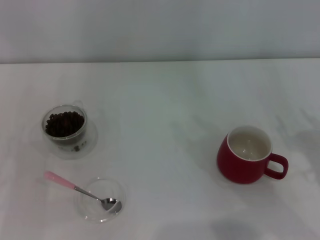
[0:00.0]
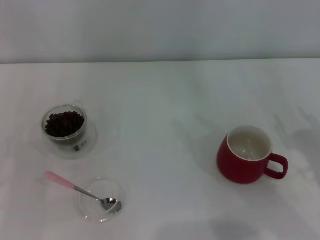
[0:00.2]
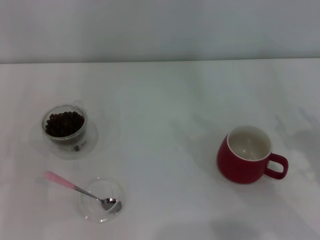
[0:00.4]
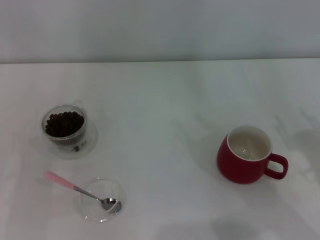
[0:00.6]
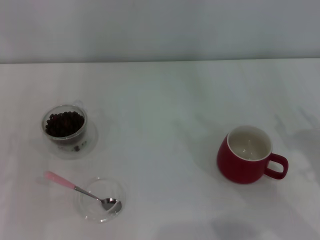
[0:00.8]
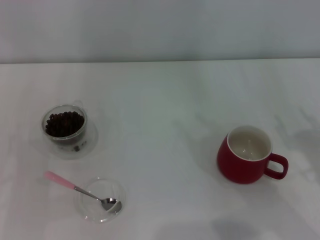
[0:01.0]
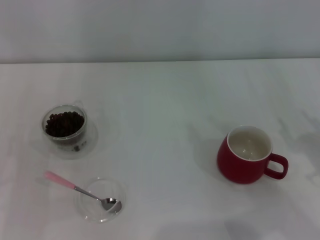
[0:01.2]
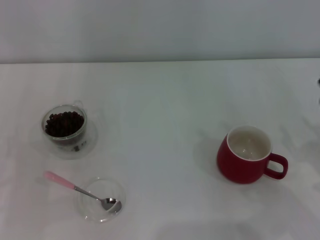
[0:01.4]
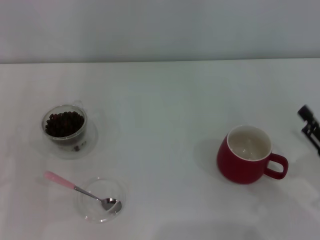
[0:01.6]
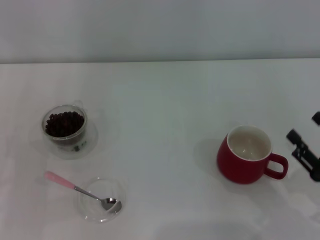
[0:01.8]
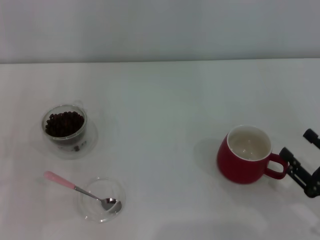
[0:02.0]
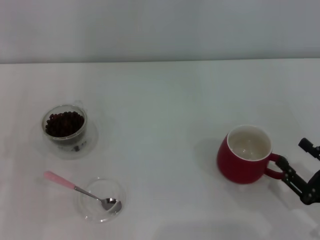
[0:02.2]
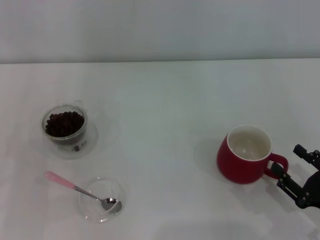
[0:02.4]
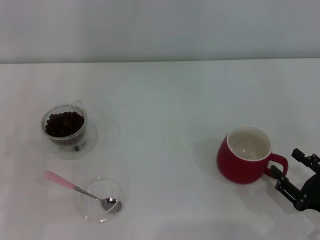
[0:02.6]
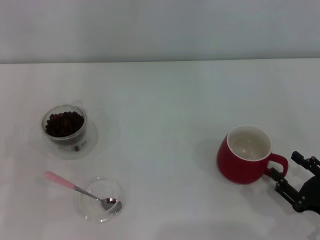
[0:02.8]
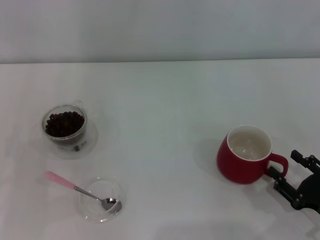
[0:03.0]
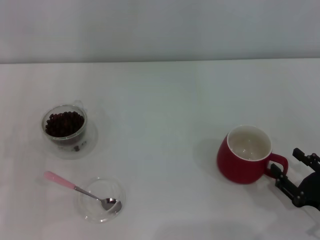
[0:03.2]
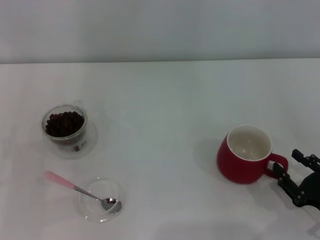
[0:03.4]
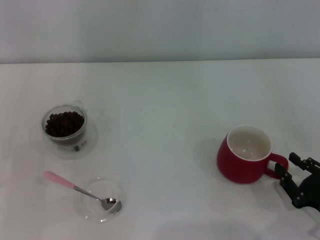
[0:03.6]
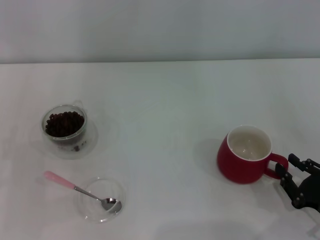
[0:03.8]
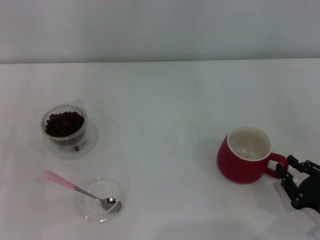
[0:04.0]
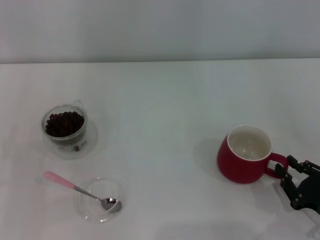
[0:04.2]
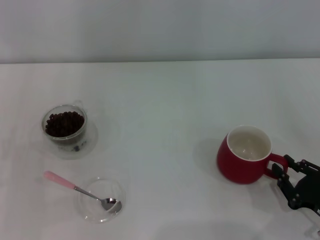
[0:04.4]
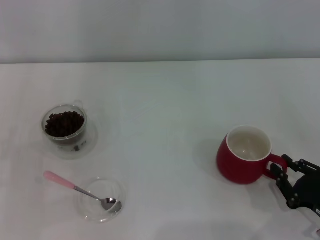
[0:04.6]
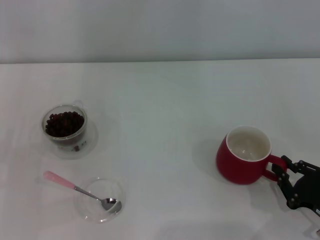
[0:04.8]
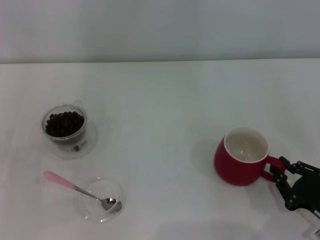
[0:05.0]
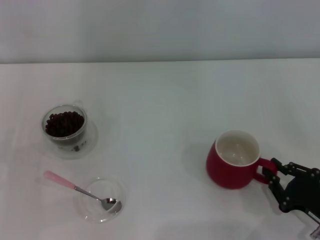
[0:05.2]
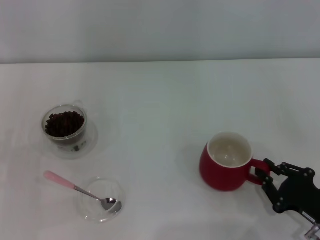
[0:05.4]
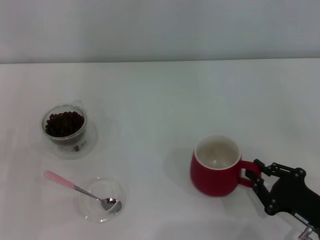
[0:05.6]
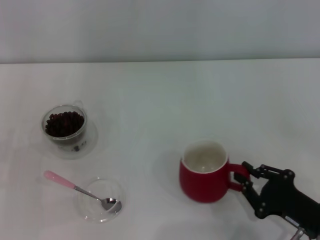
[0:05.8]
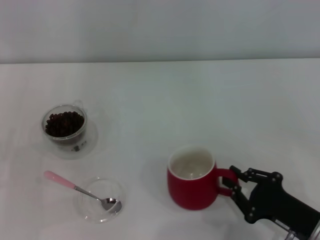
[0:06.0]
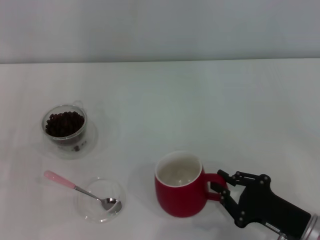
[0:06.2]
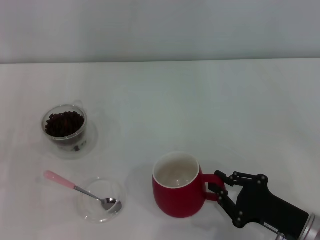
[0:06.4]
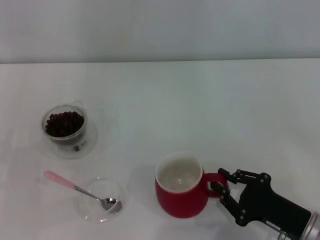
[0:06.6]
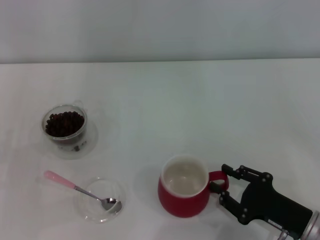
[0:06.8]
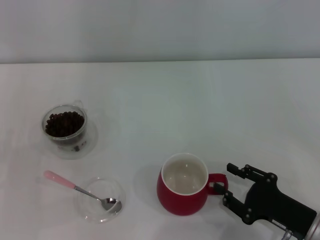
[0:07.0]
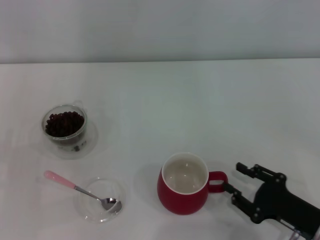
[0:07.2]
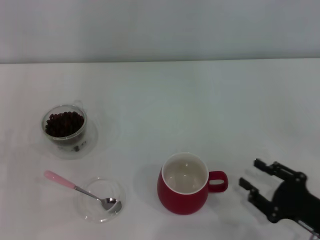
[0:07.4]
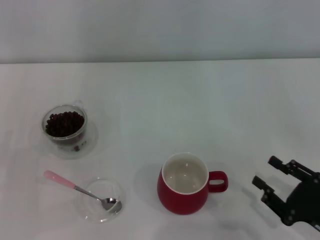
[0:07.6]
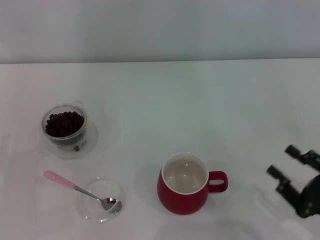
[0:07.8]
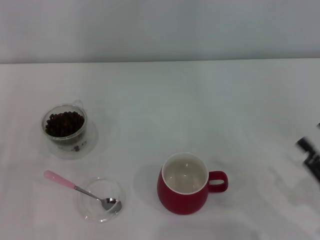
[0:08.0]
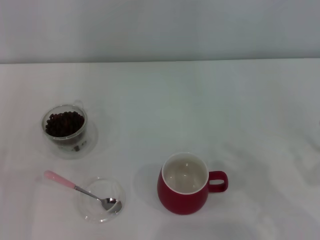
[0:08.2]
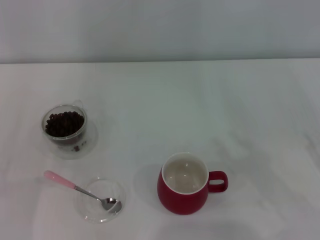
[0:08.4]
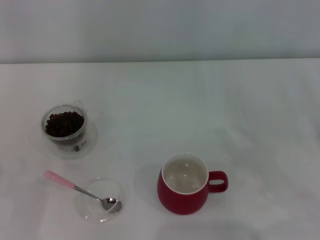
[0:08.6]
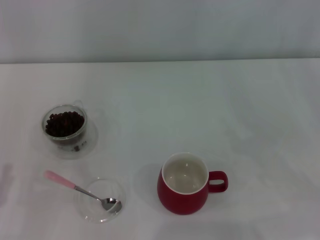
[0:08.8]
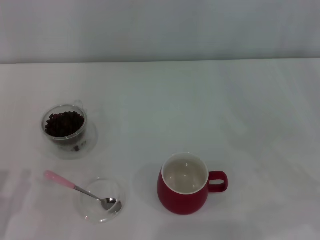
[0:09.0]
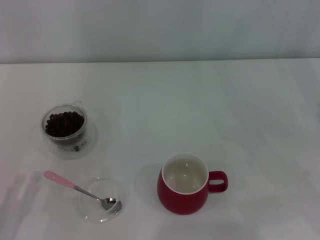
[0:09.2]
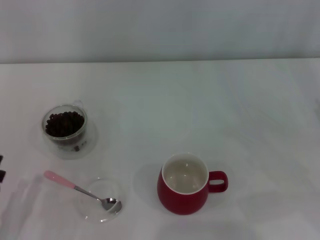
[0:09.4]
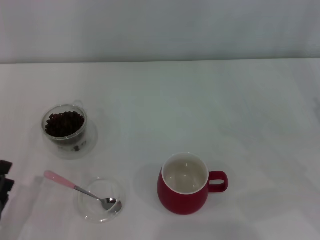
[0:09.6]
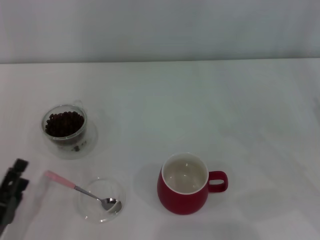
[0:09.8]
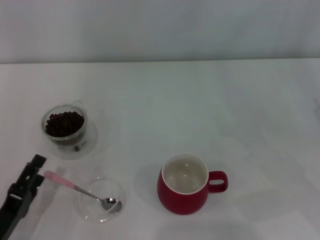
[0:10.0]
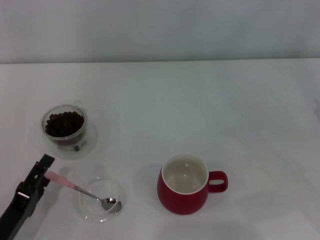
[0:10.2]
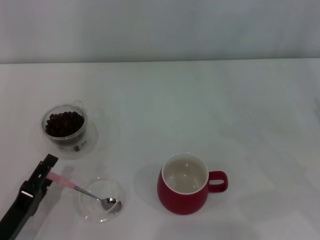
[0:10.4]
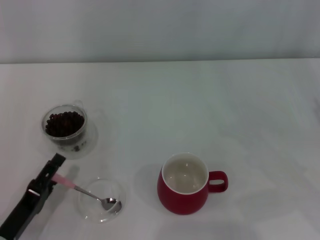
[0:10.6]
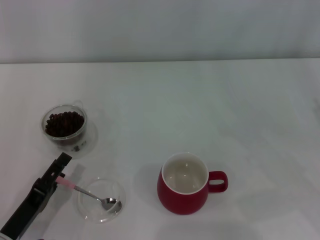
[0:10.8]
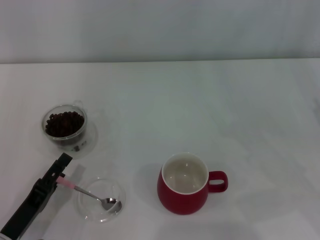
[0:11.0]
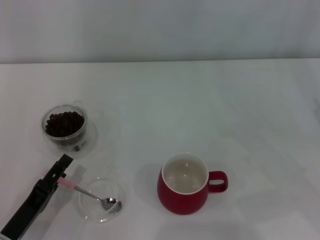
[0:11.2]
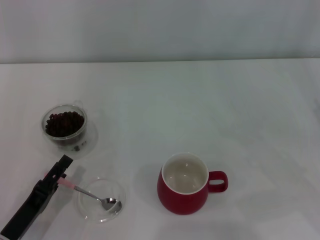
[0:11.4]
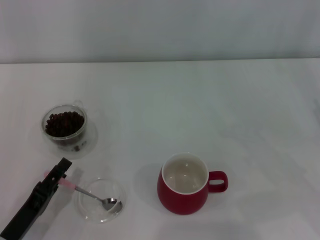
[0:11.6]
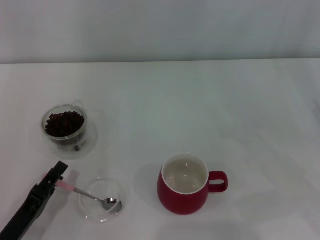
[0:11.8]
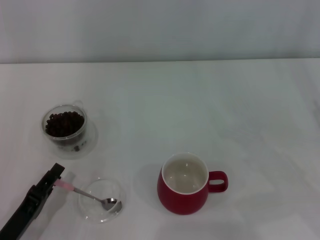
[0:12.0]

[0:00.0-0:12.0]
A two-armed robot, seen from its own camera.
Task of the whole recording: Use a pink spoon to take out the coffee beans from the glass and pour them into the red cup.
Step, 0:00.0 to 0:07.4: Move the cup to the center of view with the left gripper.
0:00.0 to 0:01.6: The right gripper moves about 5 cm.
0:01.6 to 0:03.0: The right gripper goes about 5 cm downward.
0:03.0 to 0:04.4: The right gripper closes up.
0:04.4 to 0:06.0: The right gripper heads to the left, covering some 5 cm.
0:06.0 to 0:07.6: The right gripper opens its fingers.
0:07.6 to 0:09.0: The right gripper shifts approximately 15 cm upward, to the right and forward.
0:09.0 to 0:10.4: The left gripper changes place by about 5 cm.
0:10.4 to 0:12.0: The left gripper closes.

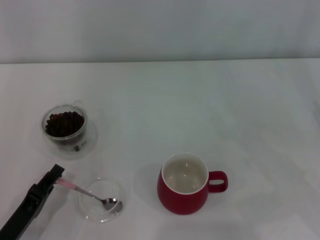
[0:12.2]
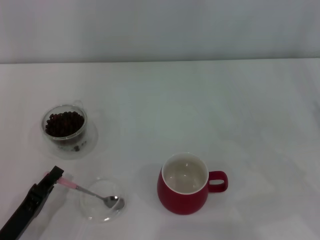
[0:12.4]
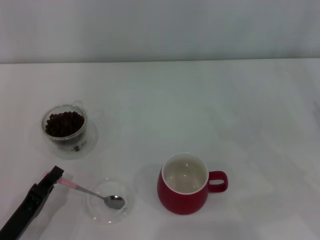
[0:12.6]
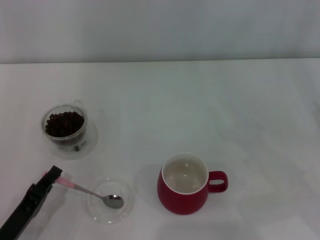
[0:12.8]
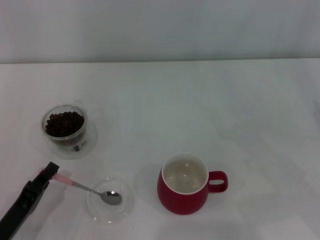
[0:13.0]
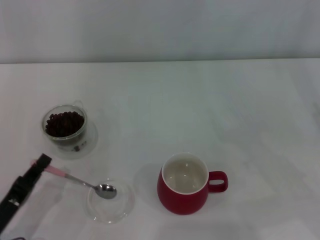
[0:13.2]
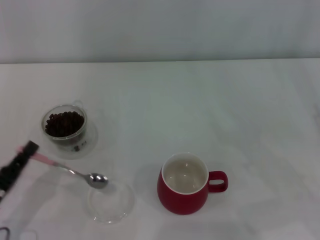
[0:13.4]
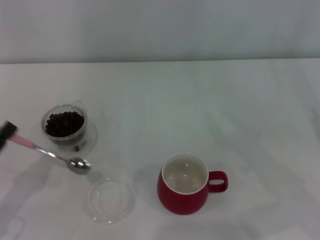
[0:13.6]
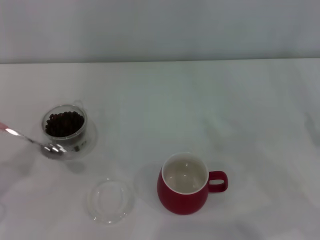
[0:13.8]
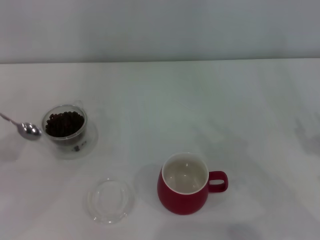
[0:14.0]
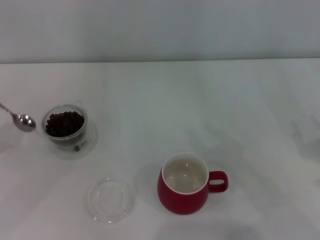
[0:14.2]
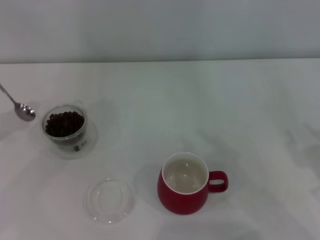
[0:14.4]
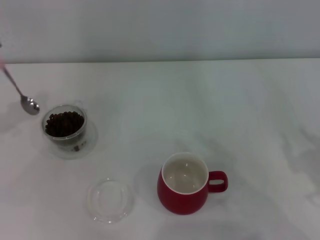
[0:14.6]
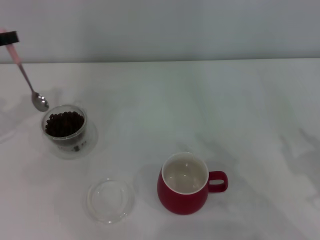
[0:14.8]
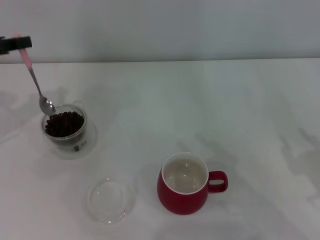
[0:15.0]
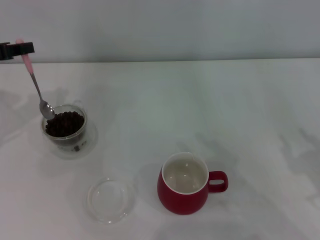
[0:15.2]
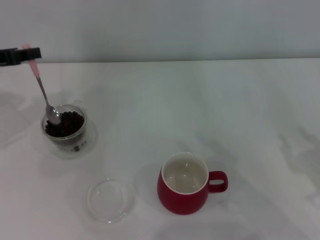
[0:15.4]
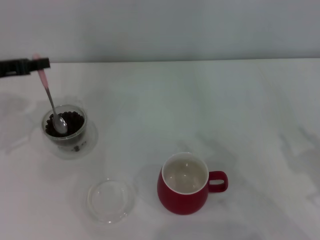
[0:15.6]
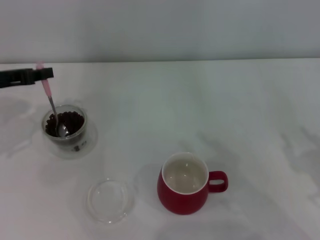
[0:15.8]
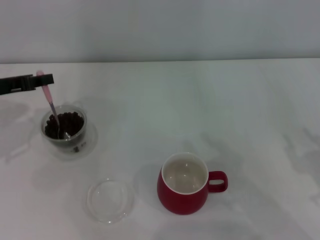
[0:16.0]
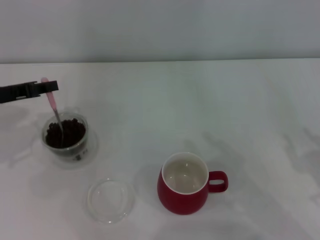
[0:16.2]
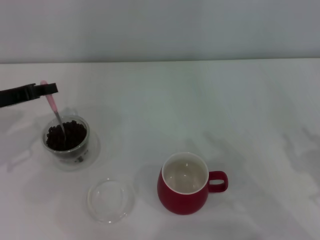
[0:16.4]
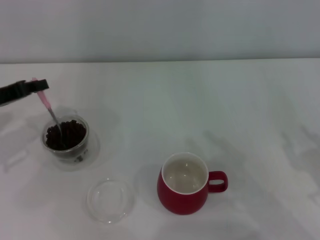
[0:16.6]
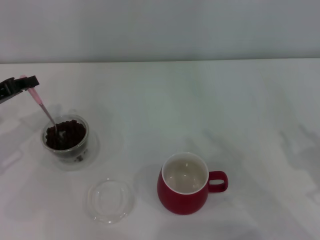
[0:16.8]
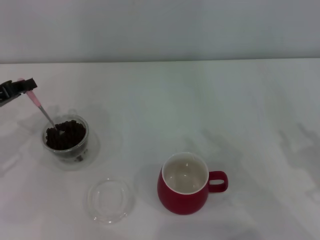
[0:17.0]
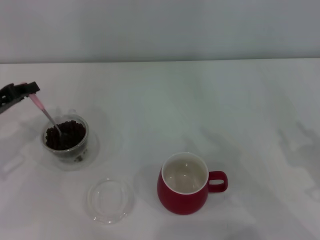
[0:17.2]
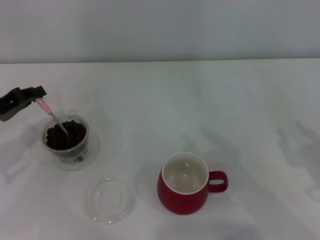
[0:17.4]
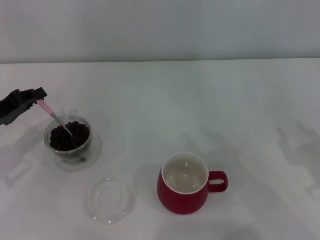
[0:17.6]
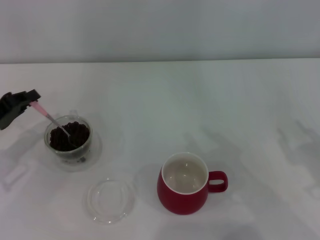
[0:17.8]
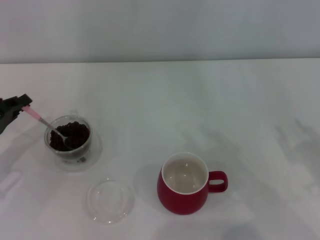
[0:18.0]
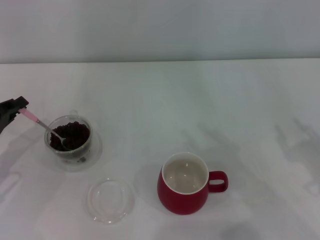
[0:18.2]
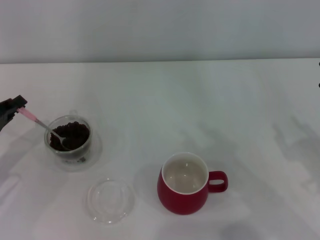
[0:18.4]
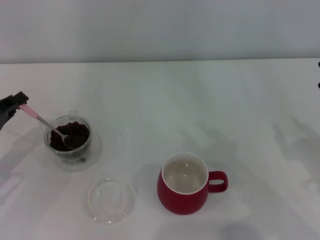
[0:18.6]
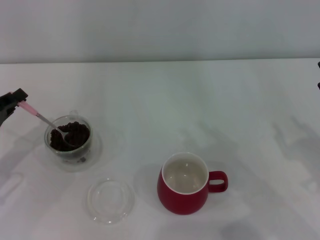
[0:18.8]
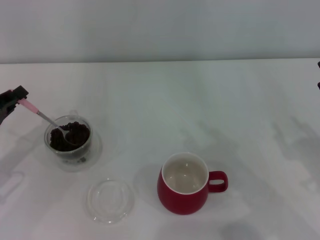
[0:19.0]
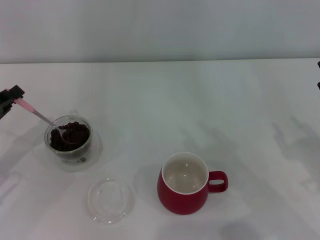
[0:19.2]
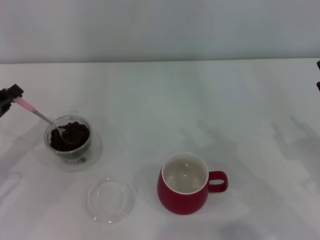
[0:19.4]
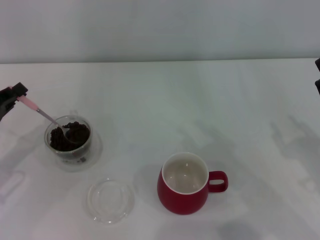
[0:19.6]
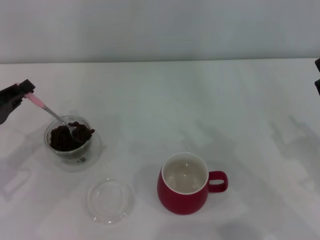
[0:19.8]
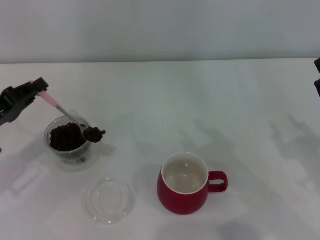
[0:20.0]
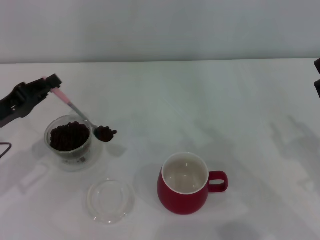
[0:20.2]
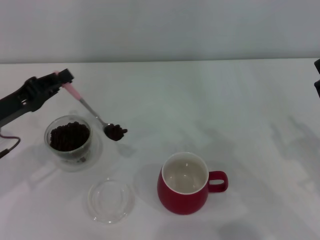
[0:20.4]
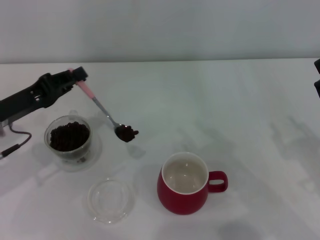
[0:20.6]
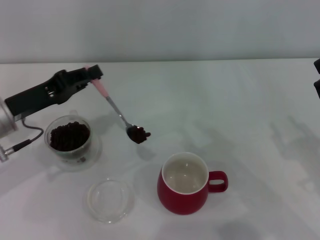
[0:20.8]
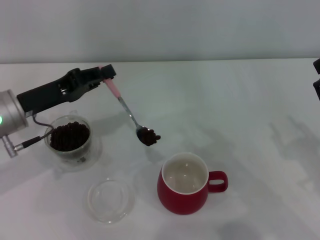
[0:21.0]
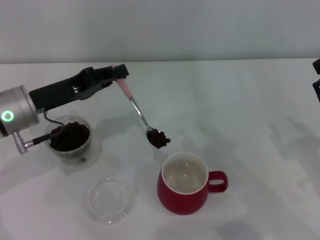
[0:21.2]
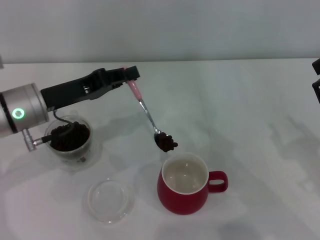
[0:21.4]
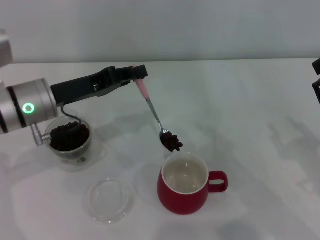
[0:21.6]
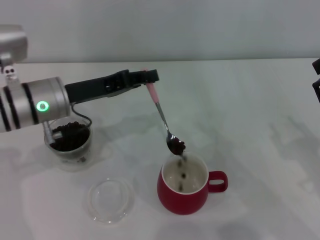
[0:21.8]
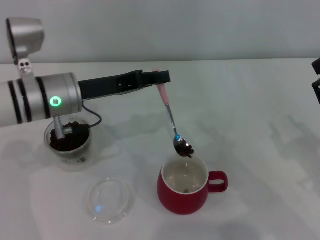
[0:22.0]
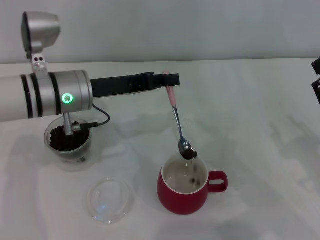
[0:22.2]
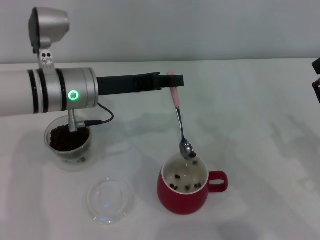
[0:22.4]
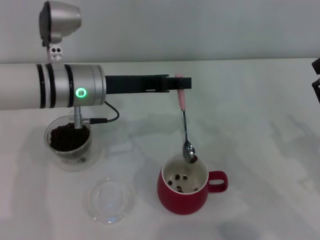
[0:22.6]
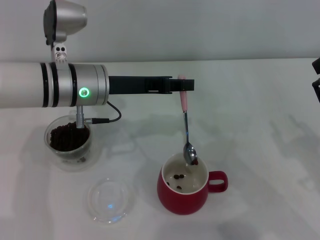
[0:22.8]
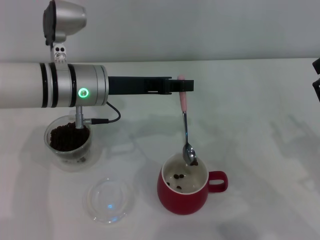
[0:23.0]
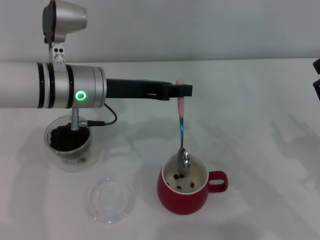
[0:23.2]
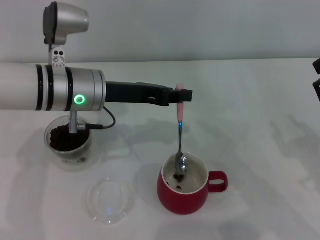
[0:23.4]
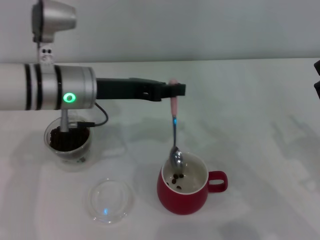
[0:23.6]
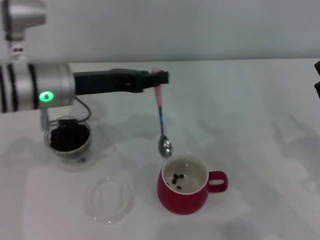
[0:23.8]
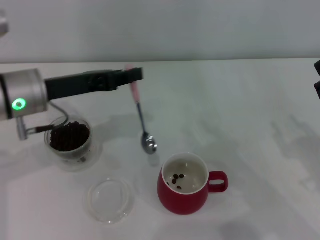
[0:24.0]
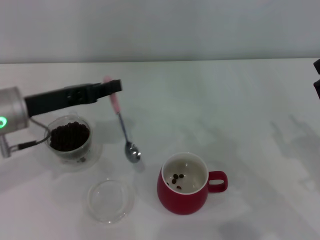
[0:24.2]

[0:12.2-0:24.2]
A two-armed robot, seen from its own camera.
Task of the whole recording: Use a pink spoon to take out the coffee beans from the glass and pour them into the red cup.
Step, 0:13.4 to 0:23.4: Scoop a spoonful of beans into the cup with the right gripper.
0:12.2 to 0:13.8: The left gripper shifts about 10 cm to the left and upward, and closes.
0:13.8 to 0:15.2: The left gripper goes approximately 20 cm forward and upward.
0:15.2 to 0:16.6: The left gripper moves downward, about 5 cm.
0:16.6 to 0:18.2: The left gripper goes some 10 cm backward and downward.
0:18.2 to 0:19.8: There are only small adjustments of the grippers.
0:19.8 to 0:21.2: The left gripper goes roughly 10 cm to the right.
0:21.2 to 0:22.6: The left gripper is displaced to the right by some 10 cm.
0:22.6 to 0:24.2: The left gripper moves to the left, approximately 10 cm.
